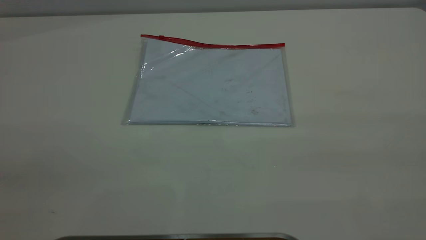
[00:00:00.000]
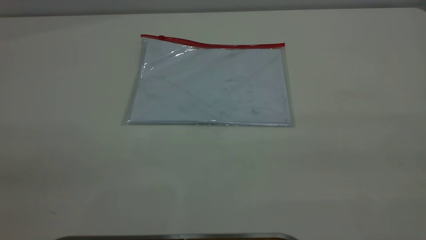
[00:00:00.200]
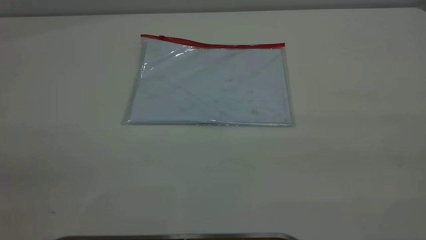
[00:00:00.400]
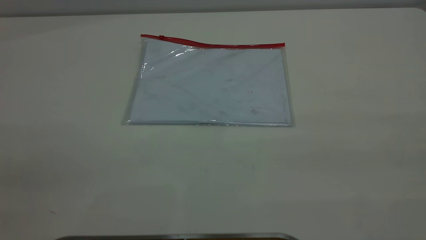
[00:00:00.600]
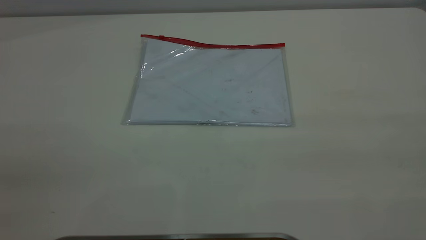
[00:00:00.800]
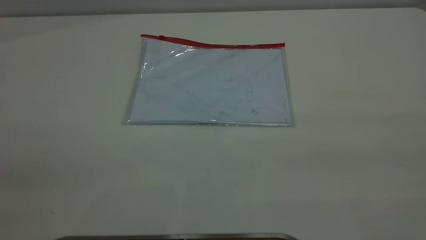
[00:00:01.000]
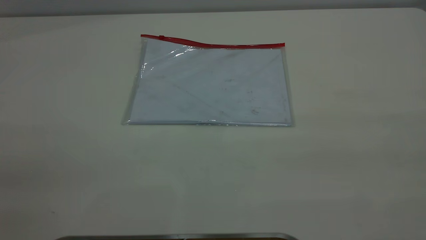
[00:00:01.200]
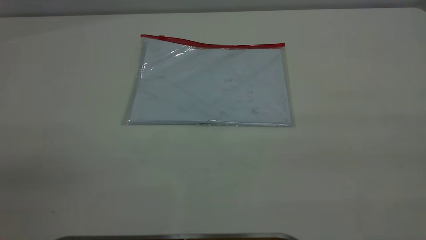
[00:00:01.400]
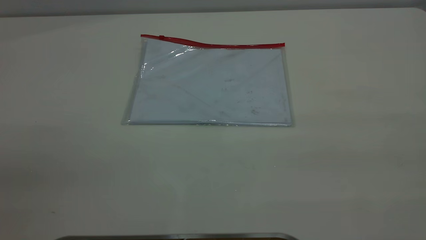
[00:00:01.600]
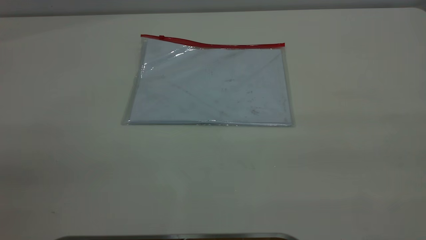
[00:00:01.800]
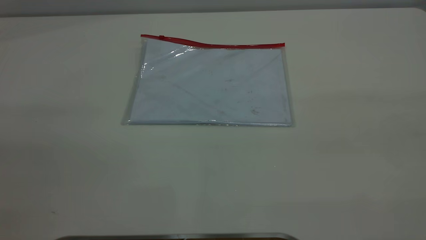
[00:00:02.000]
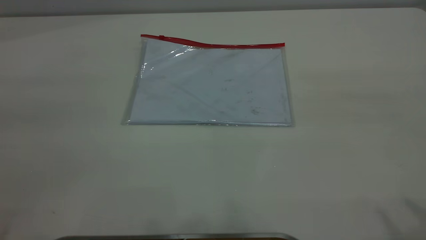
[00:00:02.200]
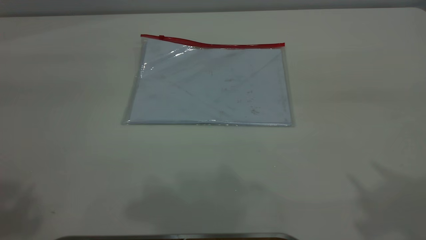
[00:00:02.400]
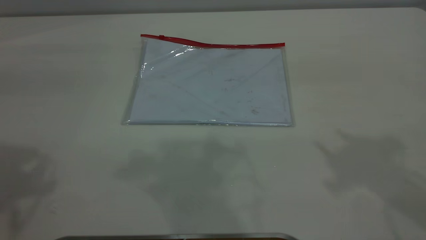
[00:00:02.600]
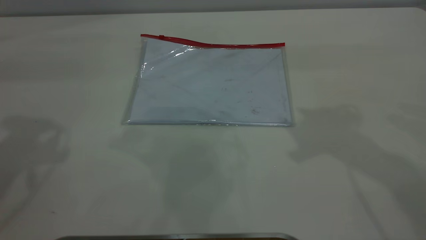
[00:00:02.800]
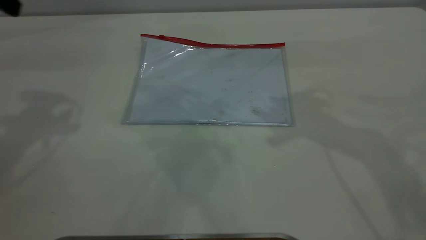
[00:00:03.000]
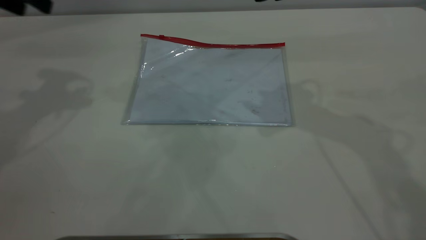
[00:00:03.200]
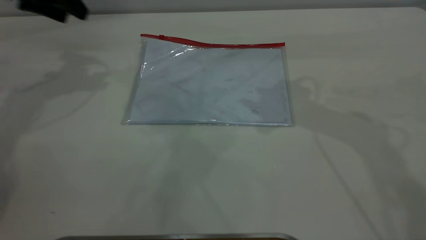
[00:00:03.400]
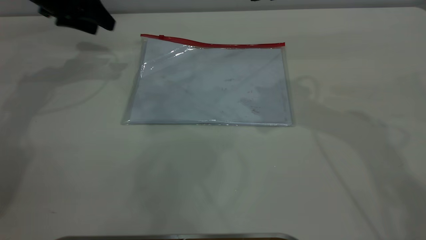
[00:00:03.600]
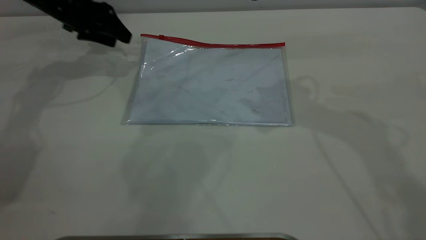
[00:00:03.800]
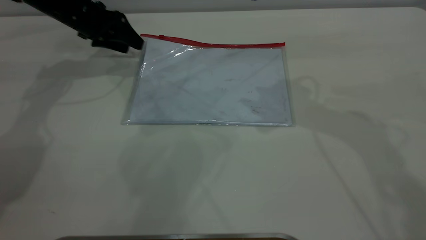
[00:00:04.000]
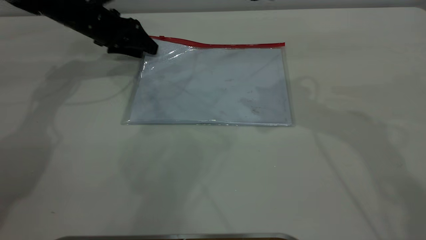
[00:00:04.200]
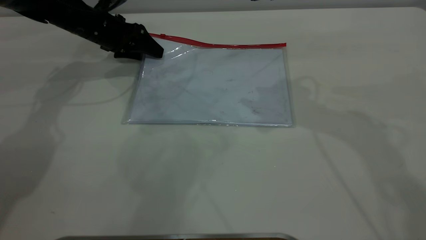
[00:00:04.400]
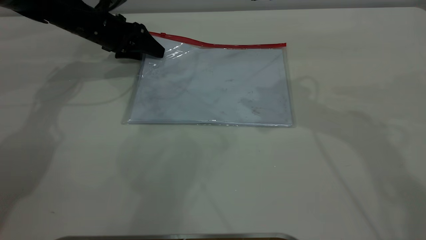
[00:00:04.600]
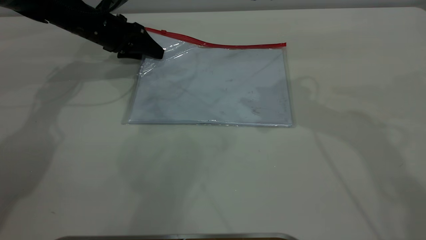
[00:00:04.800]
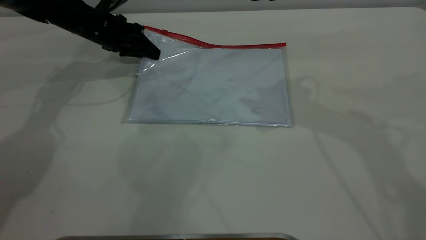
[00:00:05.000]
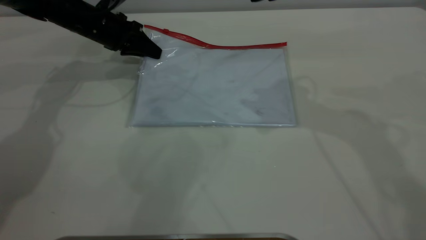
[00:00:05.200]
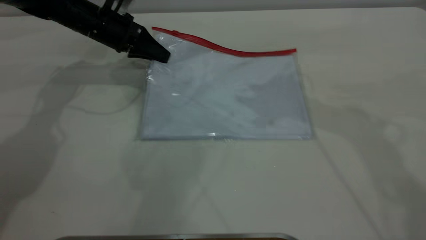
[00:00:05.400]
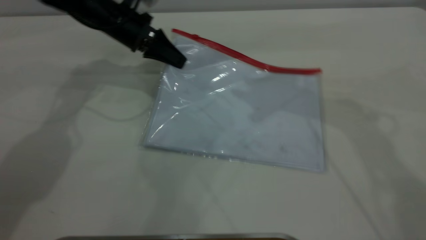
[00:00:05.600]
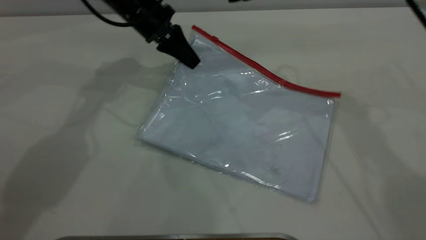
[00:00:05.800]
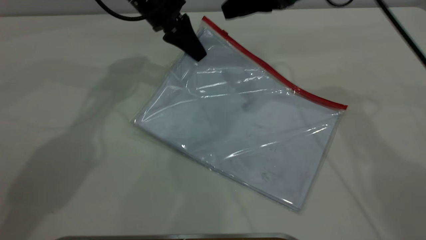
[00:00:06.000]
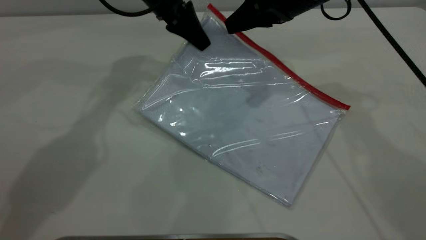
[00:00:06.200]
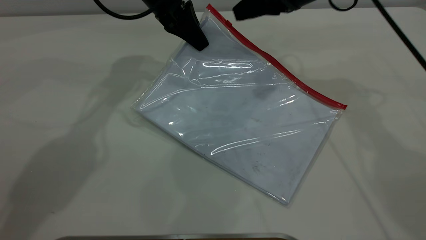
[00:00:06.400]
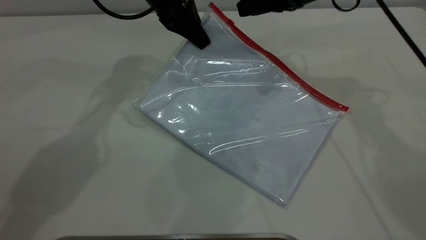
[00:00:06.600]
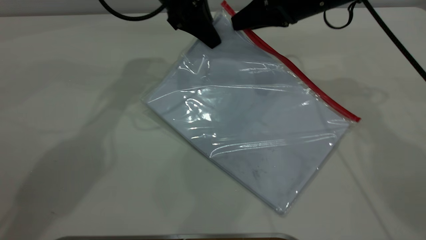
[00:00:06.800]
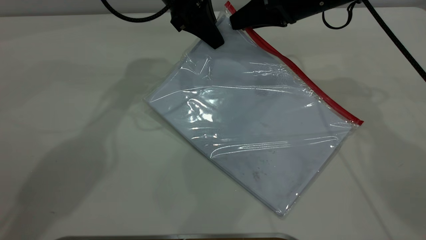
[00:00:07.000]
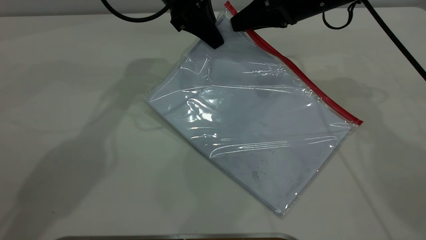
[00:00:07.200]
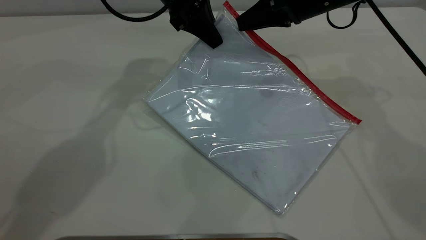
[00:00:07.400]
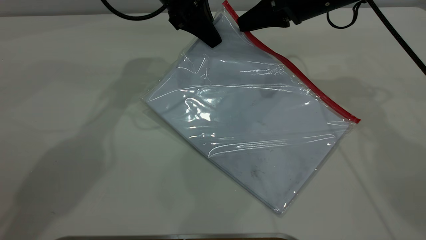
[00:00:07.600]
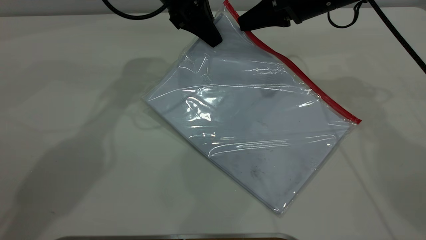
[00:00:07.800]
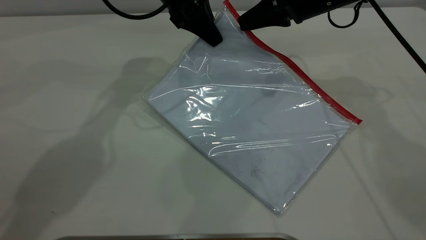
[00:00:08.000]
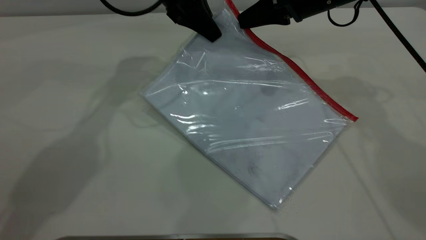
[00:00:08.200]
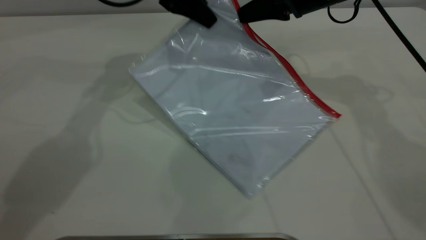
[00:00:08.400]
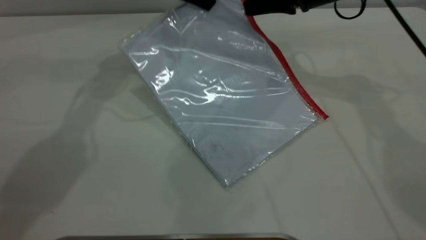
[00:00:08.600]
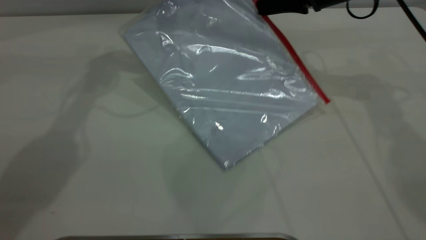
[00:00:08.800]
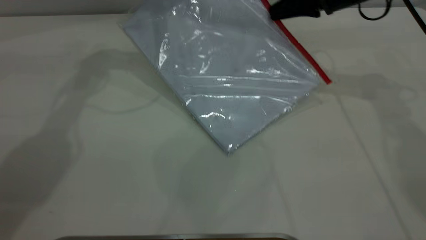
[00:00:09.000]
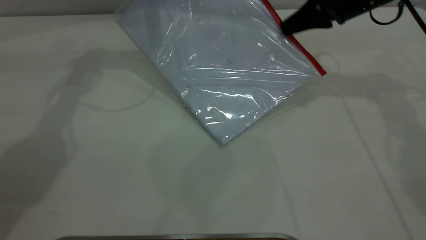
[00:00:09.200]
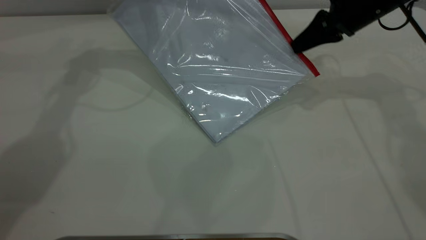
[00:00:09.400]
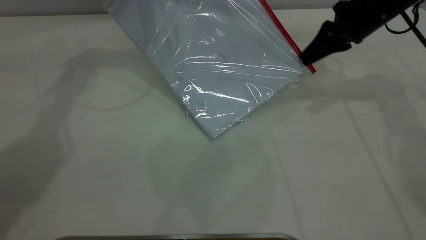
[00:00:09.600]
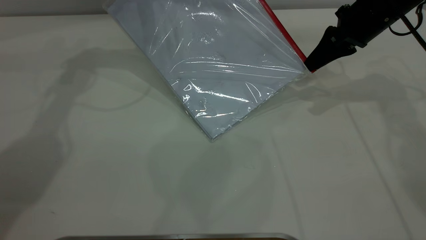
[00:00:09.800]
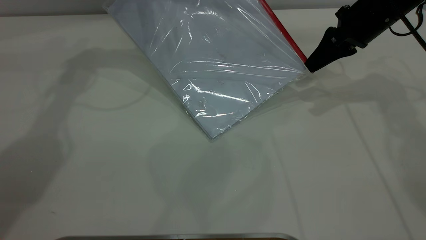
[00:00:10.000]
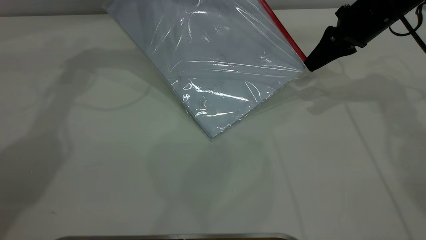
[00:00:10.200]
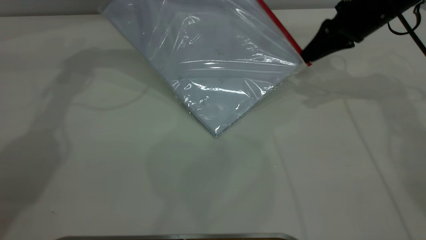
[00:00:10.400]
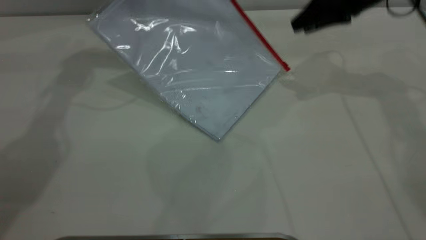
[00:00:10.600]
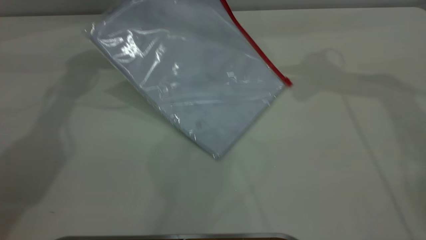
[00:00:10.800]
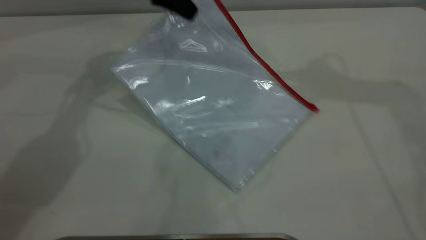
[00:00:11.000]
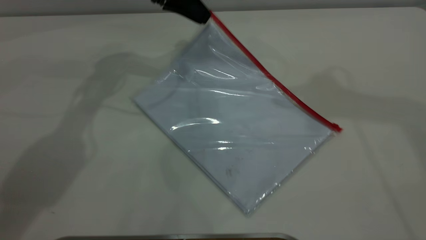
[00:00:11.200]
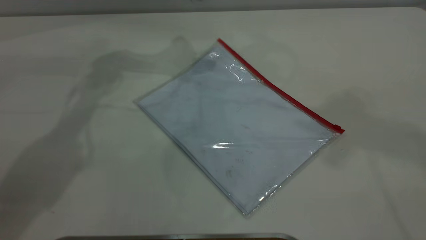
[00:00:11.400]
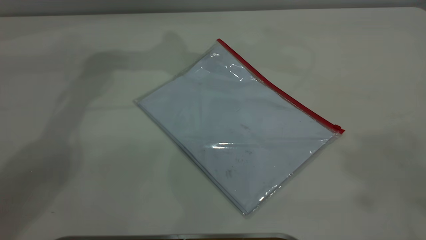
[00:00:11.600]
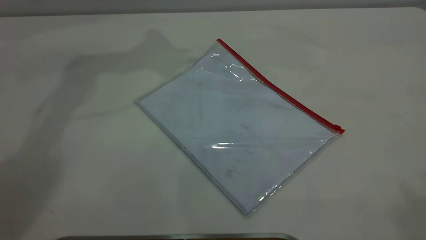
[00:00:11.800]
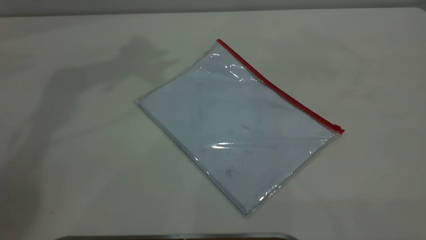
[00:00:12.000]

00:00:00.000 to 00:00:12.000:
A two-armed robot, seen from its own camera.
Step, 00:00:00.000 to 00:00:05.800: Pick up the transparent plastic bag with the left gripper.
Step, 00:00:06.000 to 00:00:10.400: Pulling up the zipper on the transparent plastic bag with the right gripper to close it.
Step, 00:00:10.600 to 00:00:11.200: Place the transparent plastic bag.
00:00:00.000 to 00:00:01.600: Both grippers stay put.
00:00:03.000 to 00:00:04.400: The left gripper moves downward and forward, some 25 cm.
00:00:04.400 to 00:00:06.000: The left gripper is displaced to the right and upward by about 15 cm, and closes its fingers. The right gripper shifts roughly 10 cm downward and forward.
00:00:06.000 to 00:00:07.600: The right gripper ends up roughly 5 cm from where it was, and closes up.
00:00:07.600 to 00:00:09.000: The left gripper heads to the left and upward, covering approximately 10 cm, while the right gripper heads to the right, covering about 5 cm.
00:00:09.000 to 00:00:10.400: The right gripper opens its fingers.
00:00:10.400 to 00:00:12.000: The left gripper shifts some 25 cm upward, and opens its fingers, while the right gripper moves upward and backward, approximately 60 cm.
